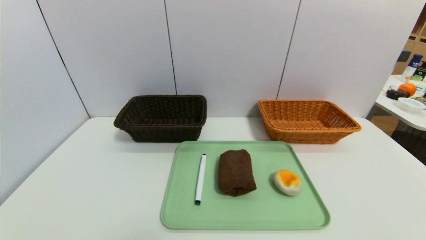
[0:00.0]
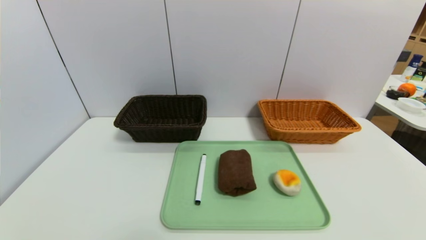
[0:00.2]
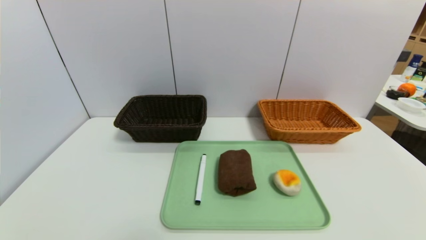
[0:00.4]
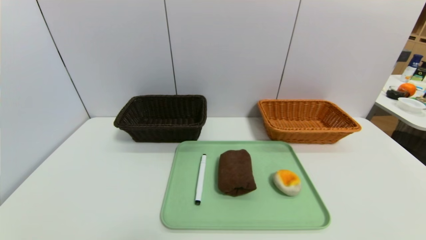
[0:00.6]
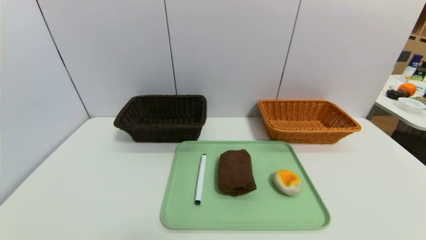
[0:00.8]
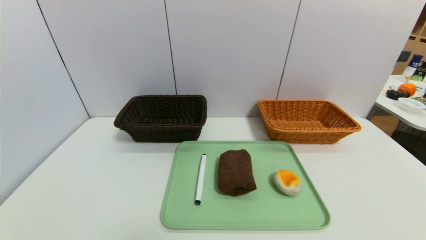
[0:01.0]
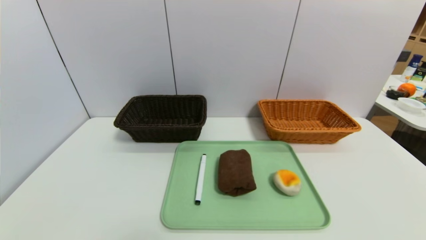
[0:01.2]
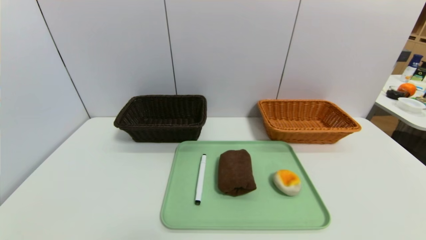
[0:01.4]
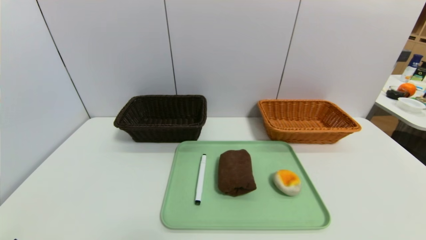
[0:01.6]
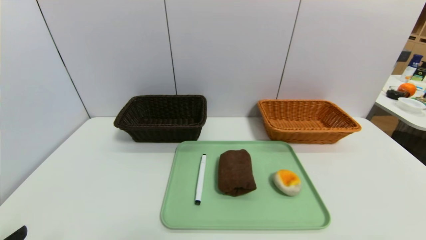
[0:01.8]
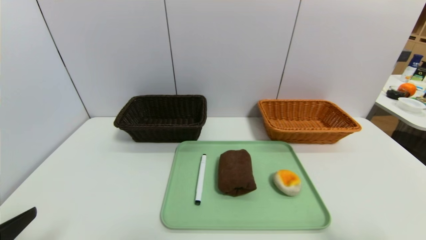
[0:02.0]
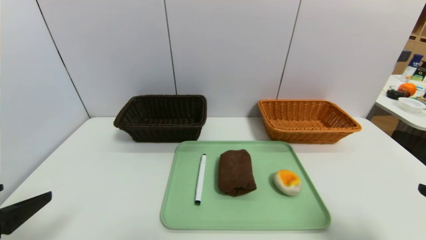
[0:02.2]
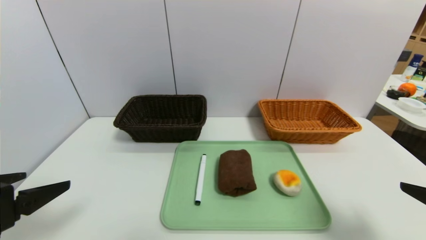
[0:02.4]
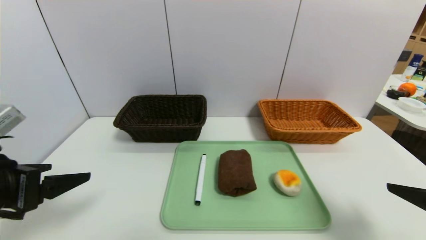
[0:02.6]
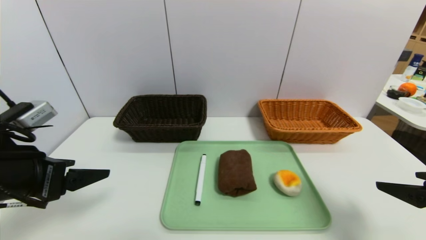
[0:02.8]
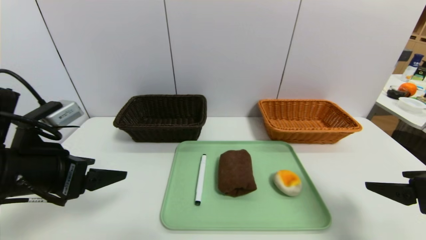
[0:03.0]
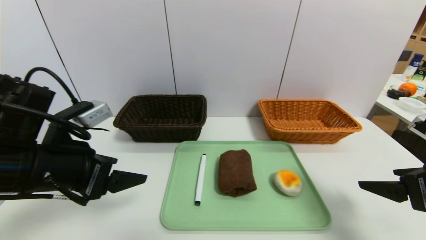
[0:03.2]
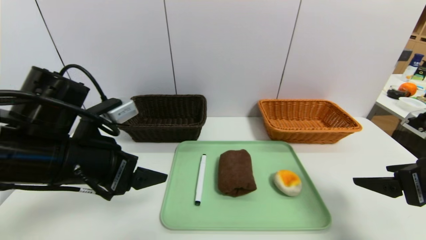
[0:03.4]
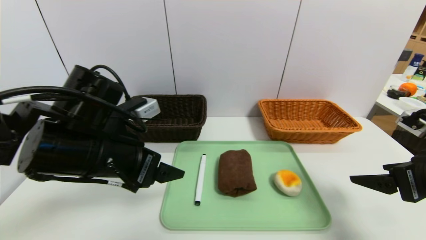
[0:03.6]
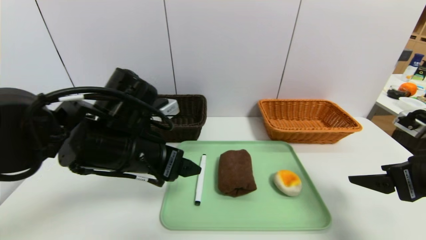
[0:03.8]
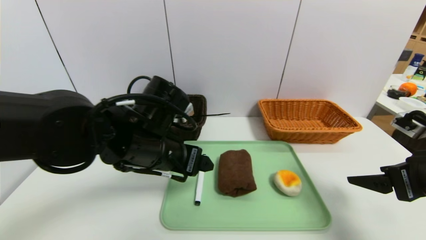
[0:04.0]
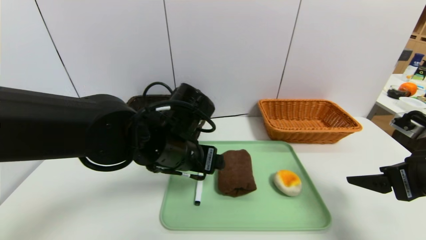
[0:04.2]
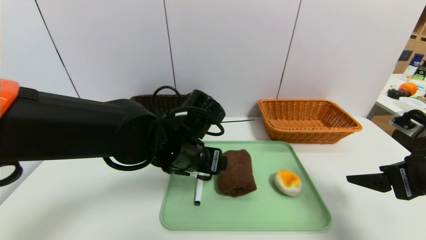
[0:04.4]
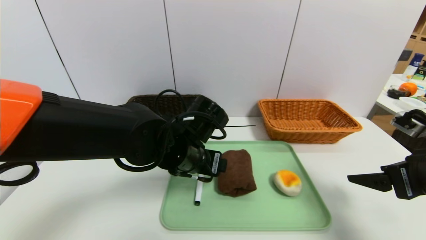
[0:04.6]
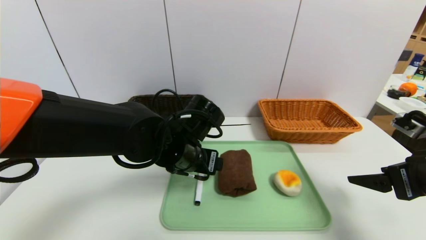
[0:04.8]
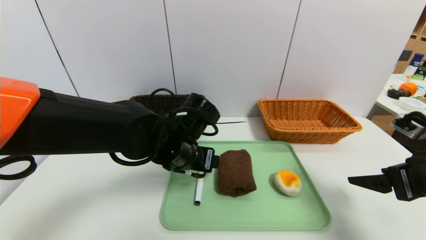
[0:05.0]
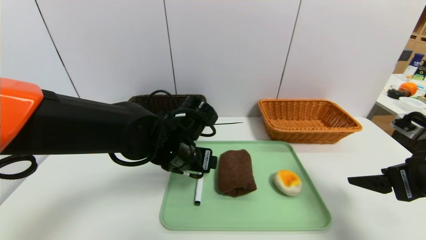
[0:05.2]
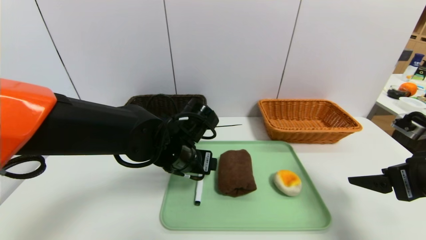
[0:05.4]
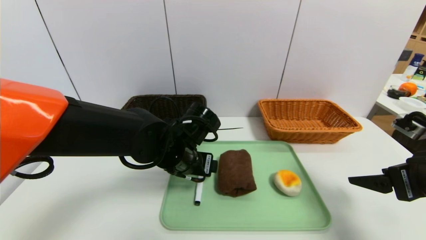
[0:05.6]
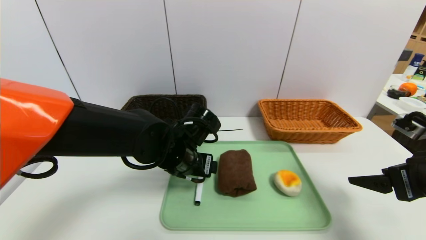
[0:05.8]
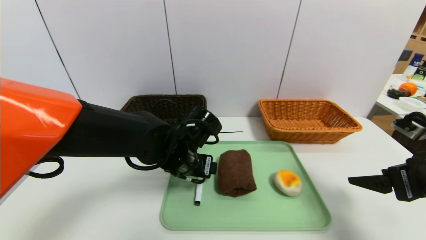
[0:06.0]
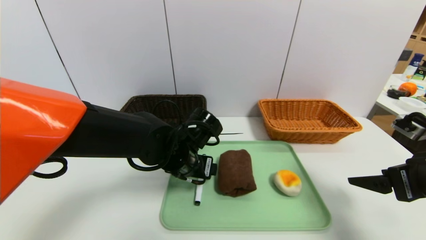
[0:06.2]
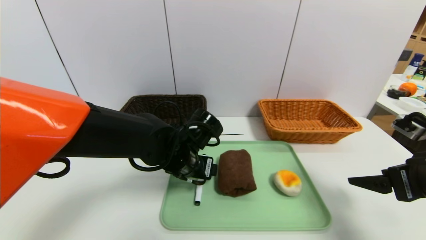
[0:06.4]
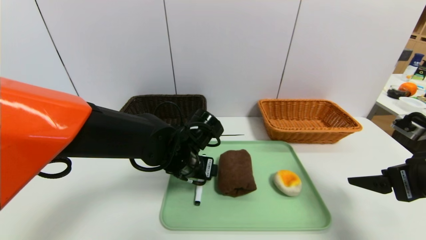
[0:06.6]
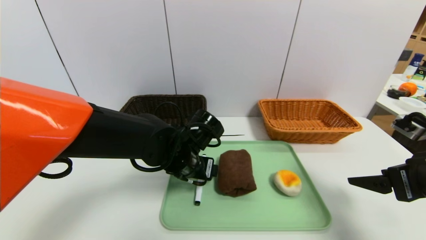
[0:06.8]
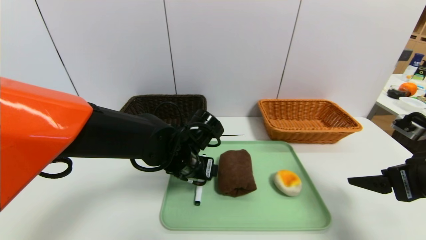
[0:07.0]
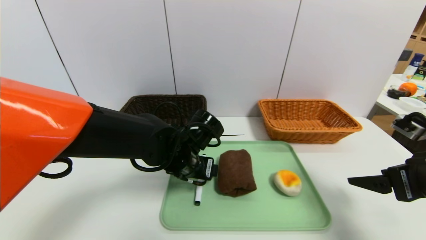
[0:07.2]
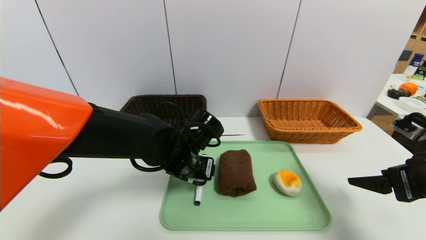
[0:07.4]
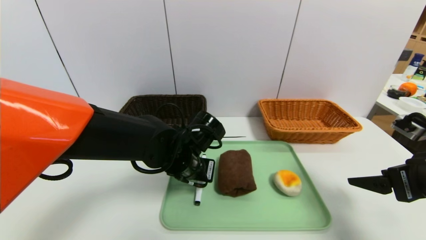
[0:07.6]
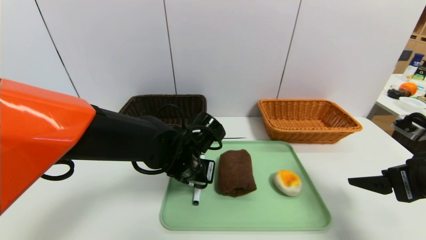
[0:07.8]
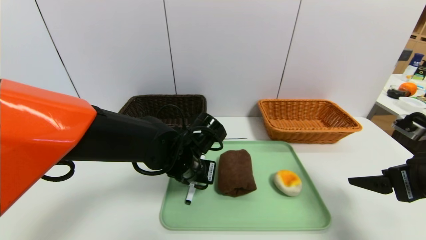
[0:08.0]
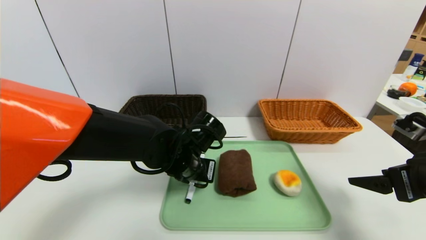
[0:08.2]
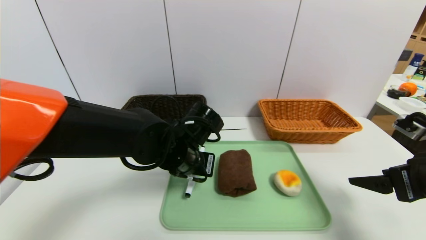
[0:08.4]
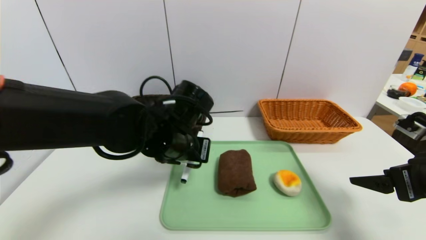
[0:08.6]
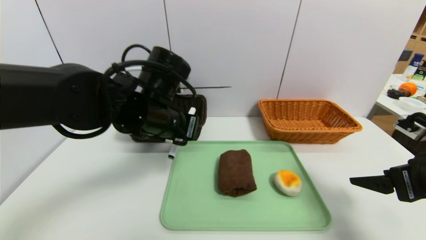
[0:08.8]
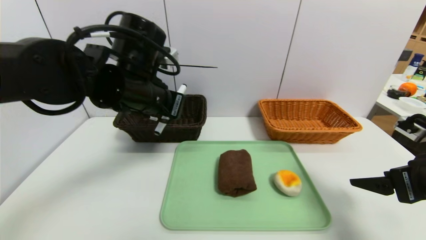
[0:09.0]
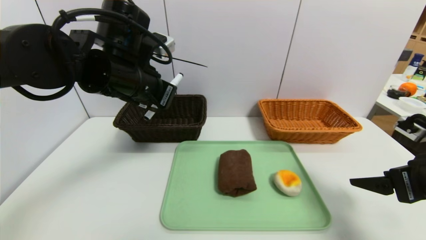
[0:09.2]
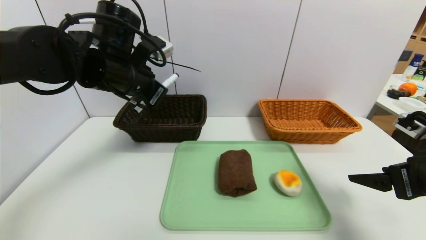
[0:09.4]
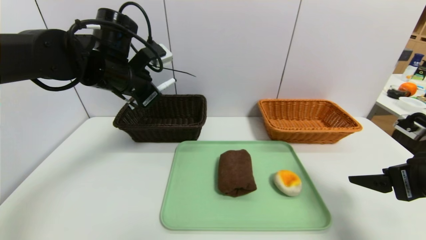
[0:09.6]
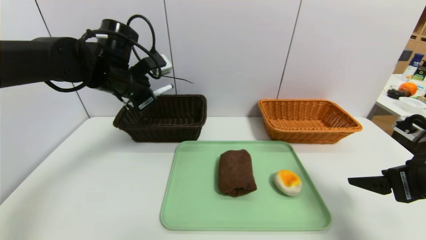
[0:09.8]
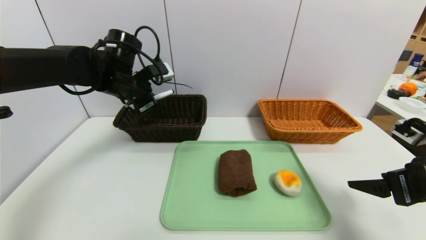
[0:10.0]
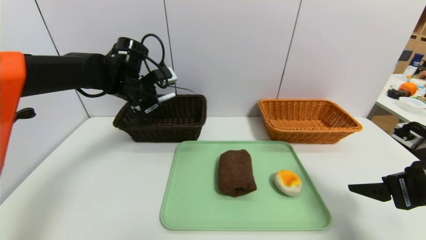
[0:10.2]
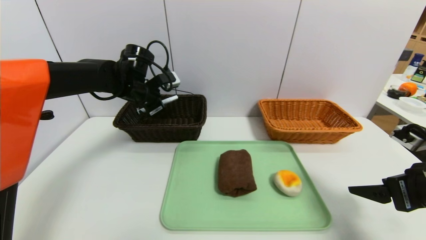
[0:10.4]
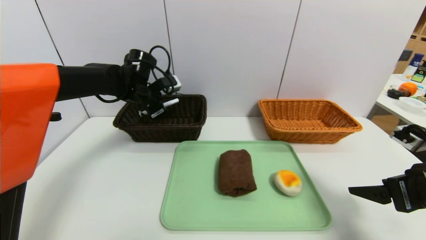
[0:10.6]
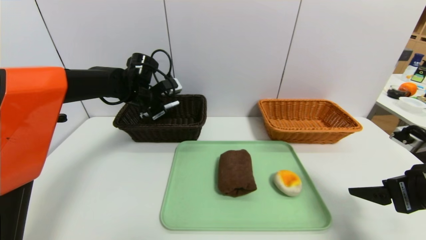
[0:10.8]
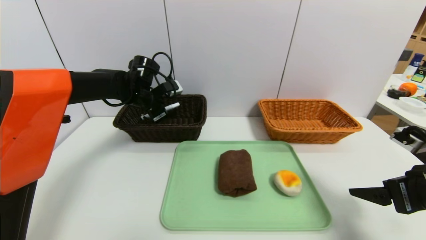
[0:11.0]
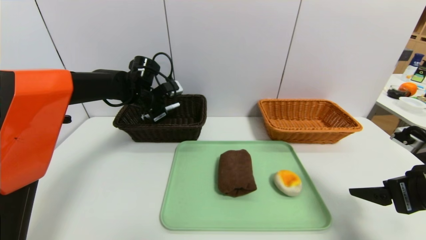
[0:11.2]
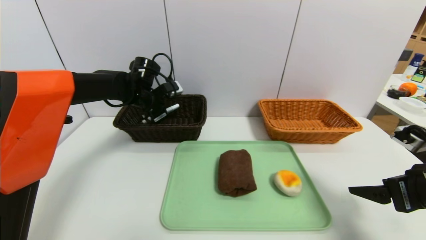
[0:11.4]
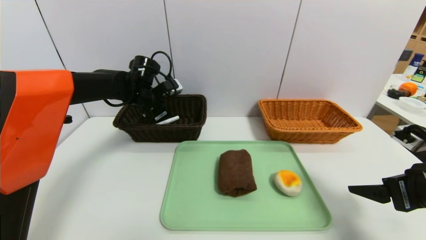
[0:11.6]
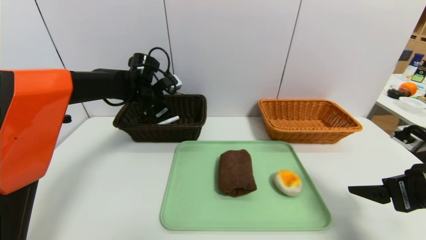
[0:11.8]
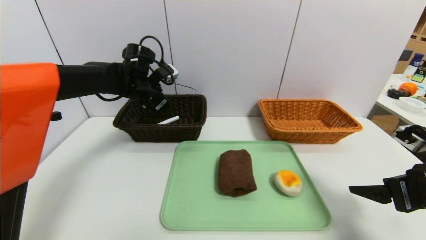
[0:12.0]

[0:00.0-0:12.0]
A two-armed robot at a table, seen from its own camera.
Task of the whole recording: place the food in the right basket with the right gripper, and place the non food items in the left basket with the left gripper.
Step, 0:00.0 to 0:11.8: Grasp the pen container and put it in the left basket.
0:01.6 to 0:03.0: Both grippers travel together forward, some 15 cm.
0:03.0 to 0:04.4: The left gripper moves to the right and forward, some 20 cm.
0:04.4 to 0:06.0: The grippers stay close to where they were, moving slightly.
0:06.0 to 0:07.6: The left gripper closes.
0:07.6 to 0:09.0: The left gripper travels upward and to the left by about 15 cm, and closes.
0:09.0 to 0:10.4: The left gripper heads forward, downward and to the left, covering some 15 cm.
0:10.4 to 0:12.0: The left gripper opens up.

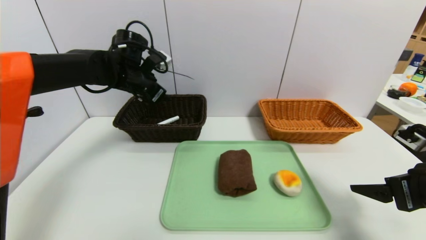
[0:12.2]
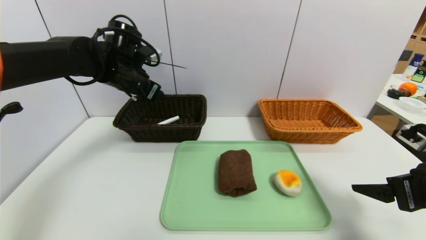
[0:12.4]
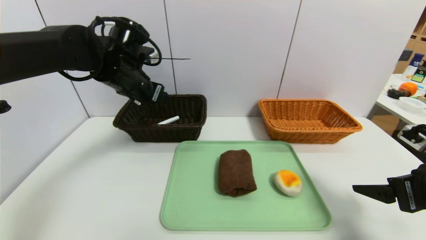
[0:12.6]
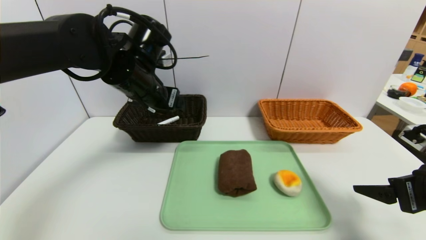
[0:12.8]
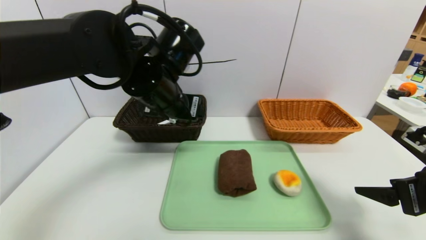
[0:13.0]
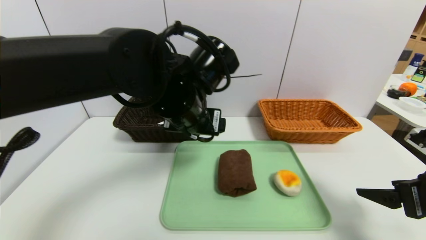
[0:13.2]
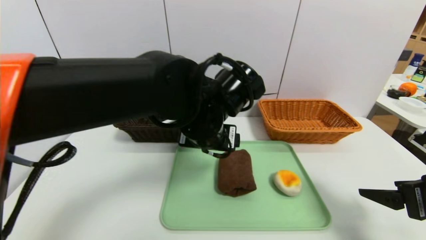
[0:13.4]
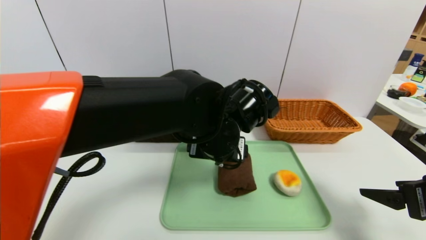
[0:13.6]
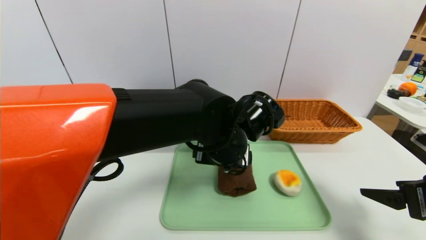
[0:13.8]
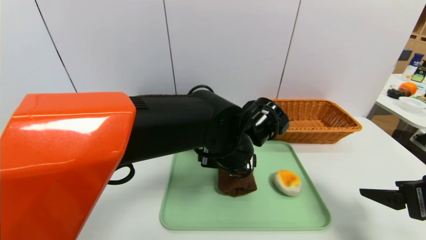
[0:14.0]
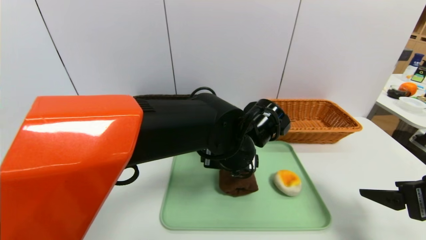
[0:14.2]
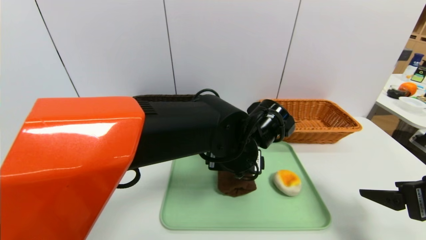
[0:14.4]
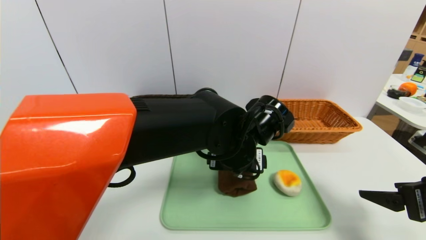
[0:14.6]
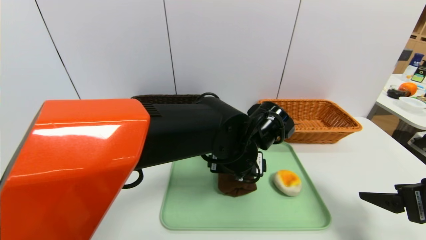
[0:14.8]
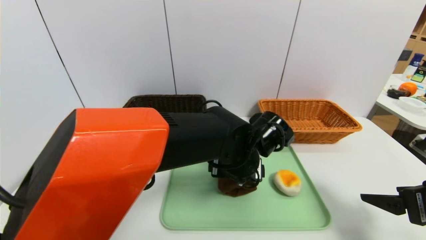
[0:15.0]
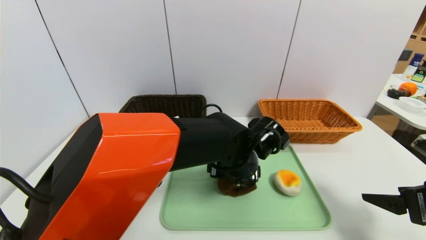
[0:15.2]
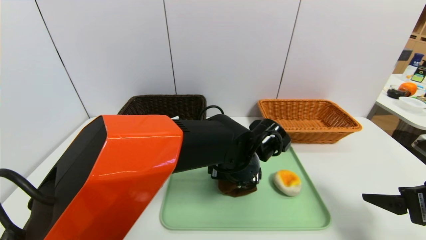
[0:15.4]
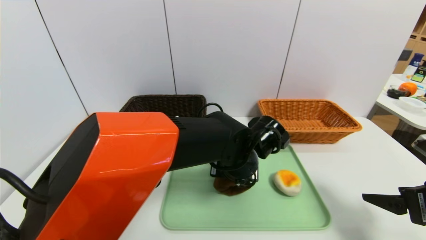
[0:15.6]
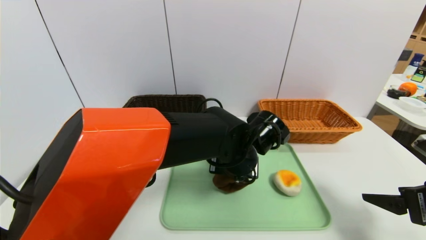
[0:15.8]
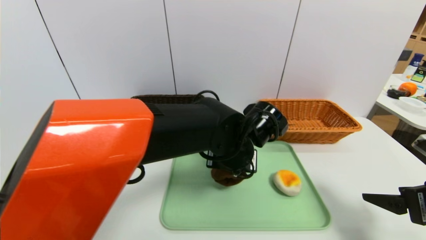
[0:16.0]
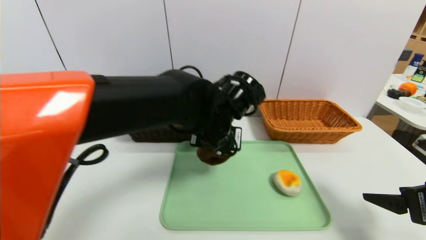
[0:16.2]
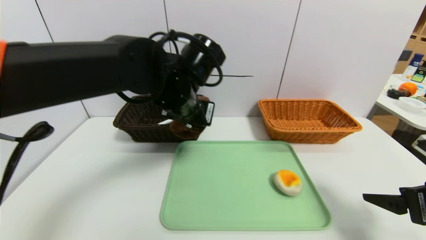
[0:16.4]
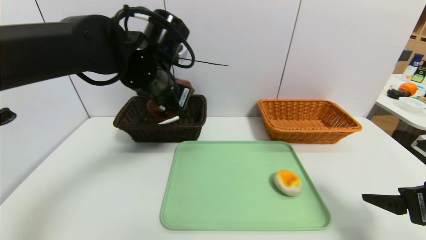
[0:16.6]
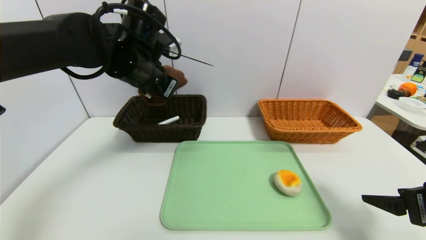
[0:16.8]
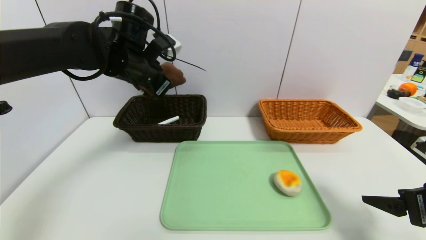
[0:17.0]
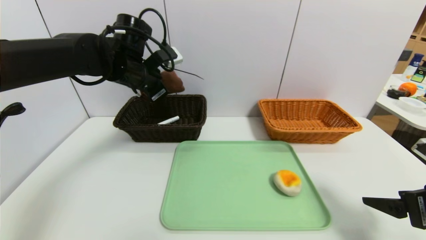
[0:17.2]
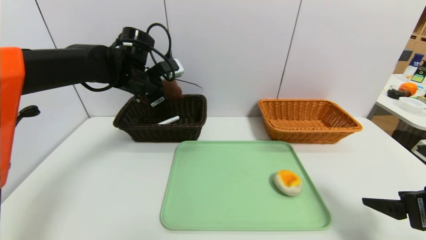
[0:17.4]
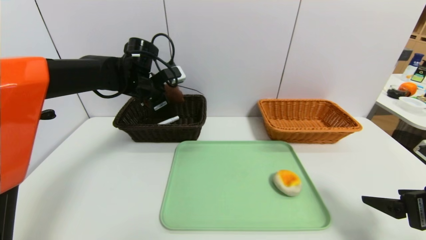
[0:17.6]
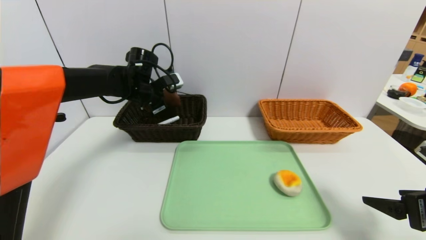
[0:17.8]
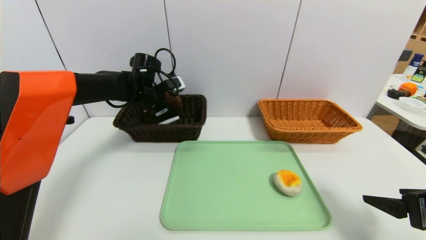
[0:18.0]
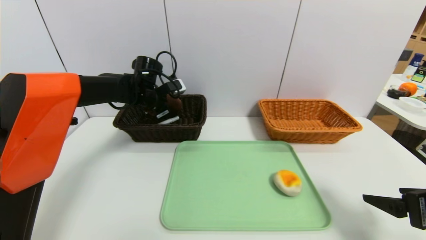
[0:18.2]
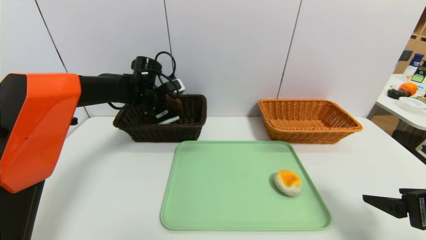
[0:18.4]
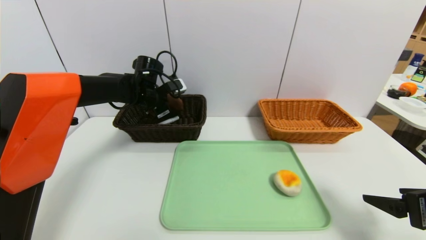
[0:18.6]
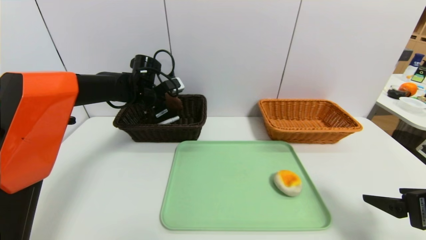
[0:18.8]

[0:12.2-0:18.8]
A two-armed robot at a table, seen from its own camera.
Task of the whole recording: place the food in the right basket with the right gripper, and place the non food items in the left basket with the left gripper.
0:12.2 to 0:13.8: The left gripper shifts about 25 cm to the right and backward.
0:13.8 to 0:15.4: The left gripper heads downward, covering some 5 cm.
0:15.4 to 0:17.2: The left gripper is displaced to the left, upward and forward by some 30 cm, and closes up.
0:17.2 to 0:18.8: The left gripper goes roughly 10 cm downward and forward.
